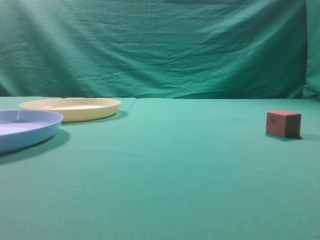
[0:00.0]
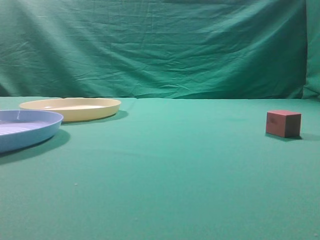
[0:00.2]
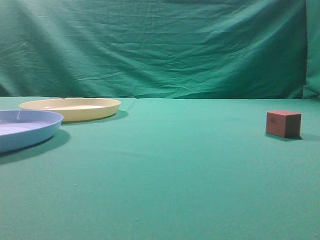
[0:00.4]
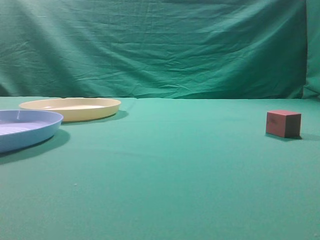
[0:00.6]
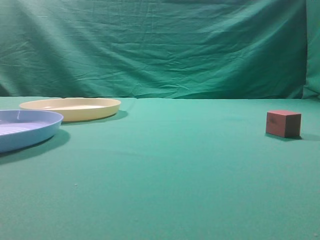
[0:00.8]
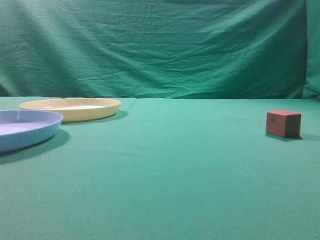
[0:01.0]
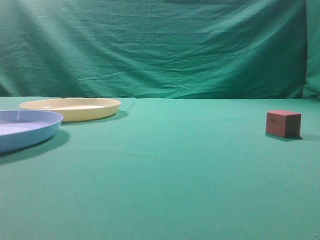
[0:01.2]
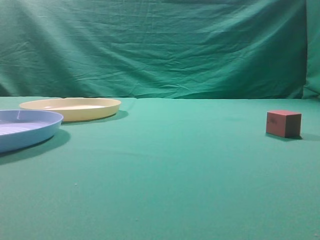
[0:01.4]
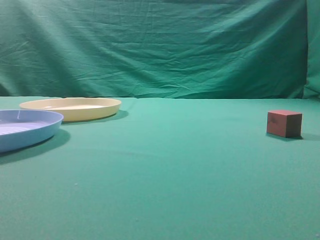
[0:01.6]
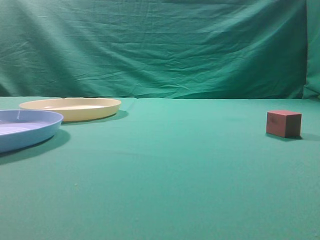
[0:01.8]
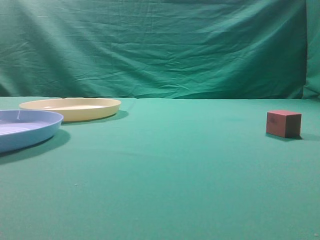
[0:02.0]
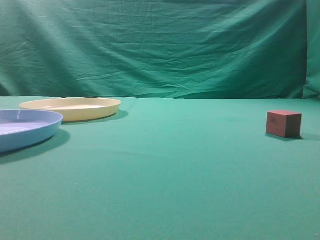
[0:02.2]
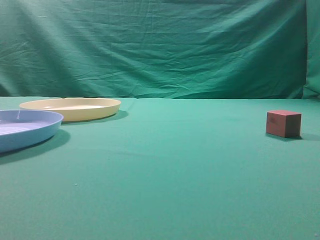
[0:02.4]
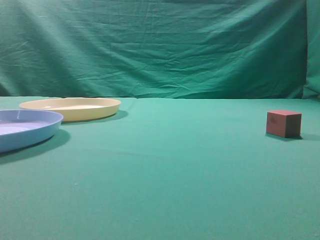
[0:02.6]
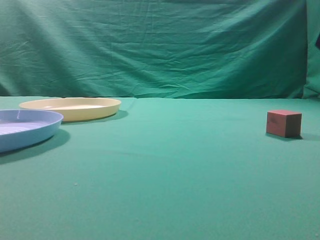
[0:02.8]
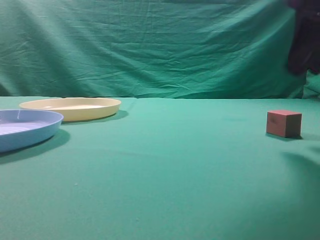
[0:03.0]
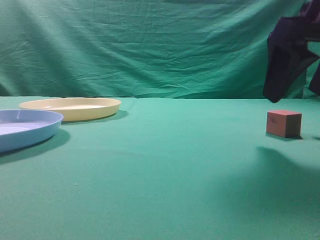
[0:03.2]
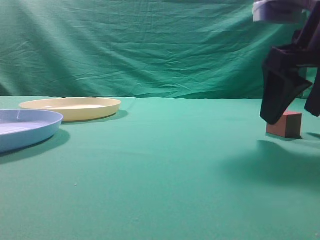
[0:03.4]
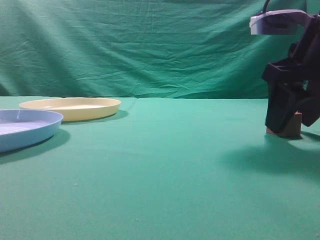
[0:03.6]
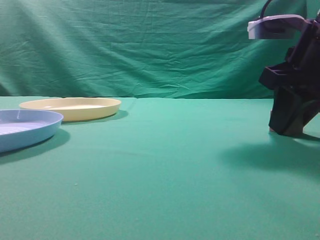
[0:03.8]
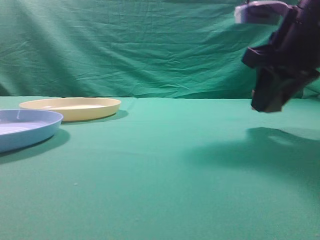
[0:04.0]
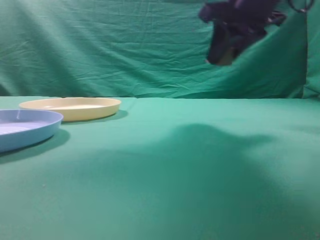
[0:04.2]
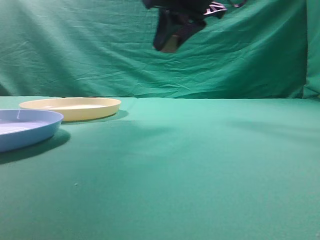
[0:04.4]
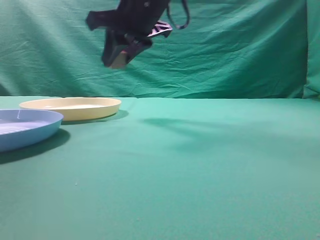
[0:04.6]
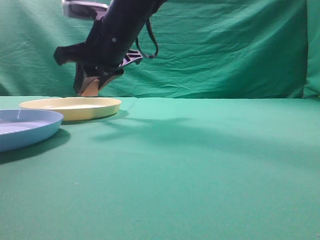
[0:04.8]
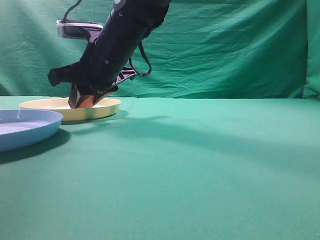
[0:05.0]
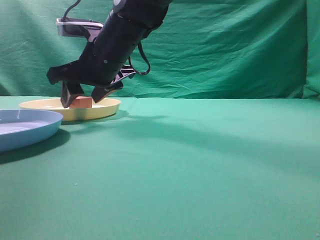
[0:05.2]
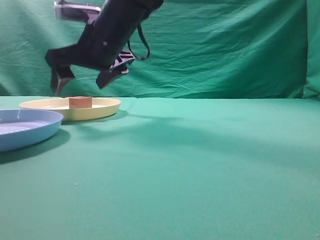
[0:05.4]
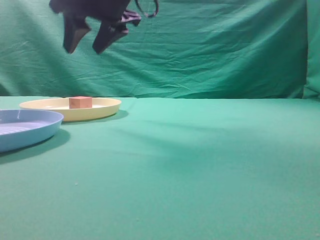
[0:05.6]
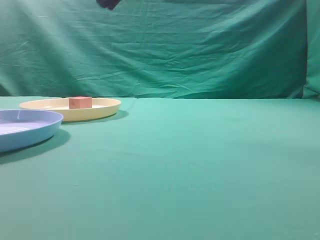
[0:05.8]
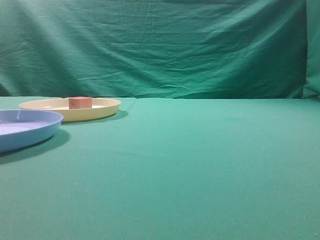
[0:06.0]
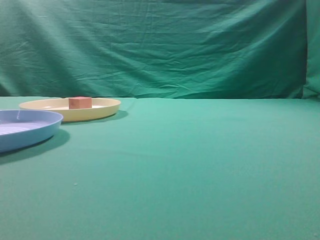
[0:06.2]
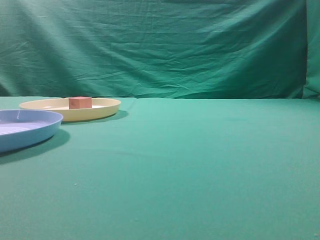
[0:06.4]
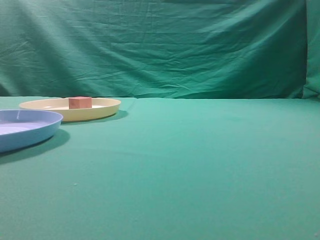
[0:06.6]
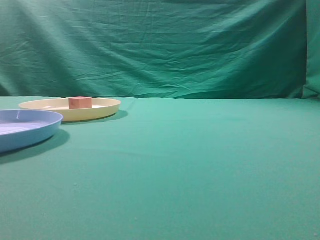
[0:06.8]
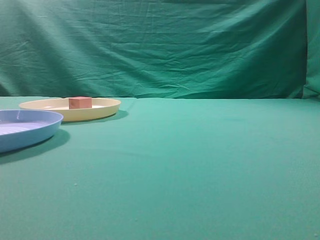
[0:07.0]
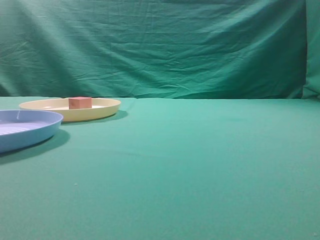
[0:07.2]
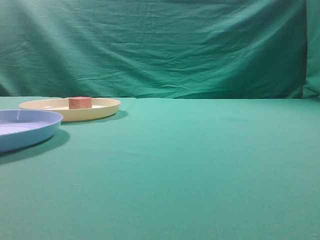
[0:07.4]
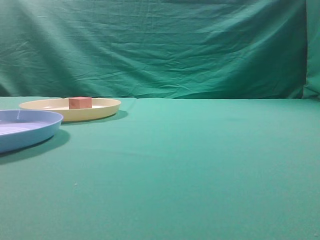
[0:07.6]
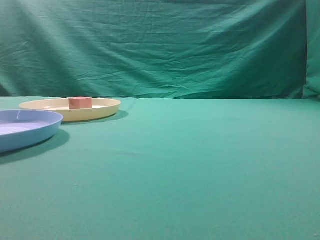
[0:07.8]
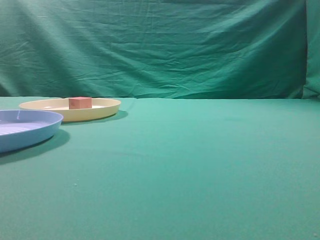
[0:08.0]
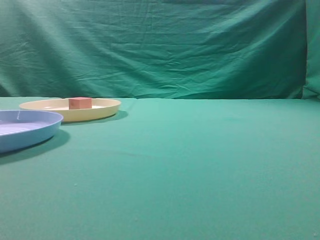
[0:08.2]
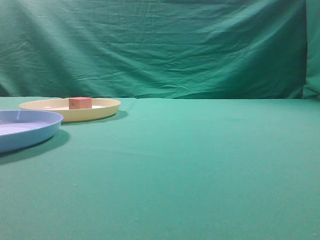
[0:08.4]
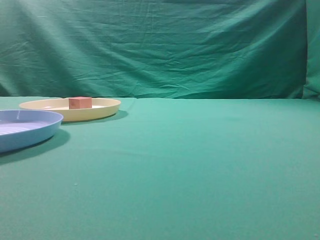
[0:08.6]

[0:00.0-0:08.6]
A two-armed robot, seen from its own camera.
Task of the whole recording: pick up the cube block from the table and put it on the plate.
Step, 0:00.0 to 0:04.0: Grasp the small cube on the table.
Step, 0:04.2 to 0:05.4: Place it into the yellow plate.
0:02.8 to 0:04.4: The right gripper heads to the left and forward, covering about 25 cm, and opens its fingers.
0:04.4 to 0:05.8: The right gripper travels upward and to the left by some 10 cm, and opens and closes again.
